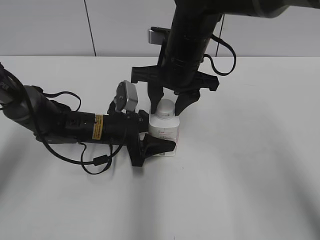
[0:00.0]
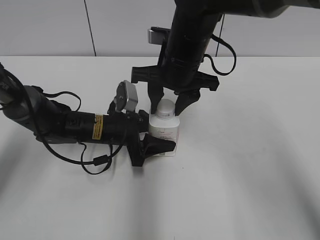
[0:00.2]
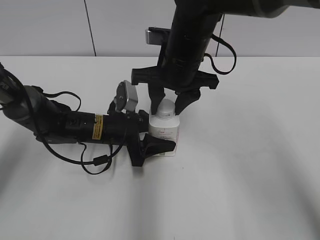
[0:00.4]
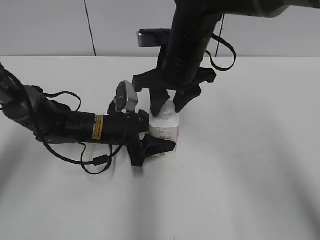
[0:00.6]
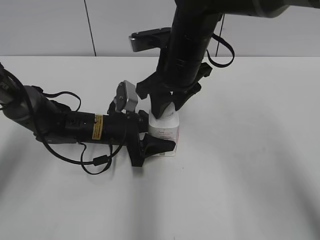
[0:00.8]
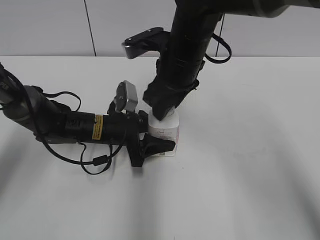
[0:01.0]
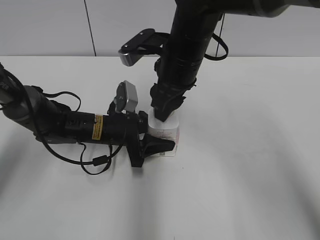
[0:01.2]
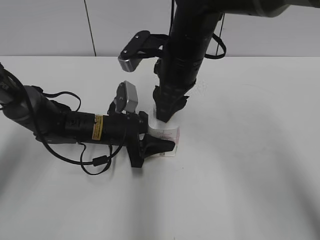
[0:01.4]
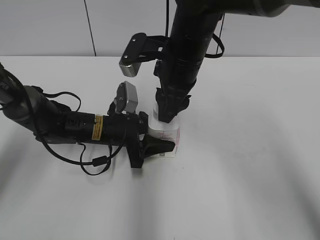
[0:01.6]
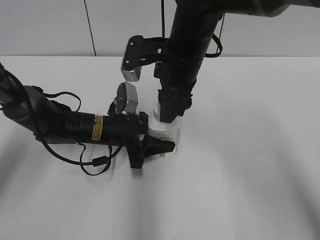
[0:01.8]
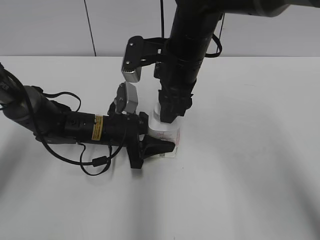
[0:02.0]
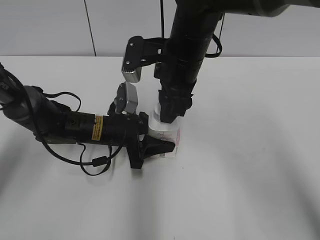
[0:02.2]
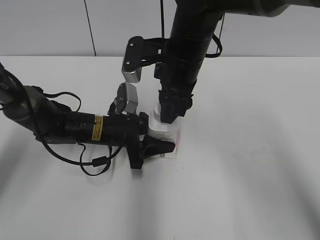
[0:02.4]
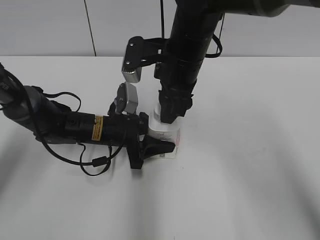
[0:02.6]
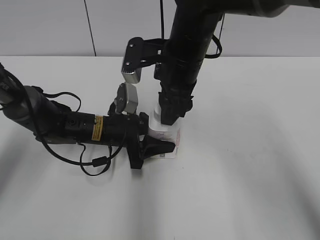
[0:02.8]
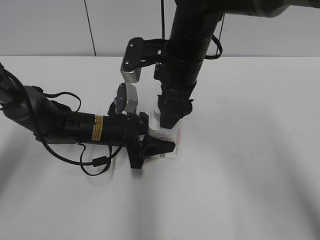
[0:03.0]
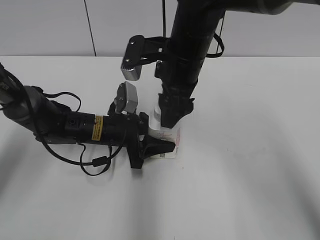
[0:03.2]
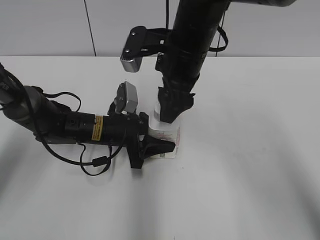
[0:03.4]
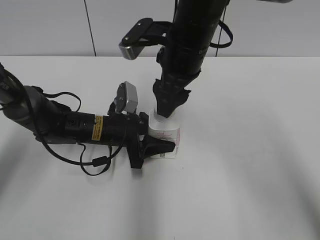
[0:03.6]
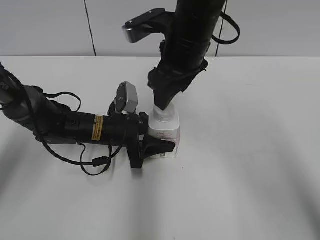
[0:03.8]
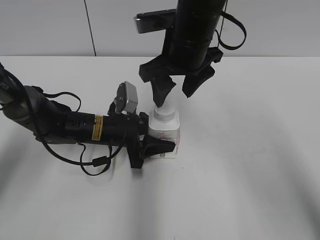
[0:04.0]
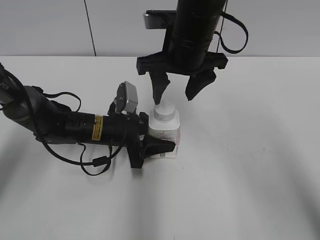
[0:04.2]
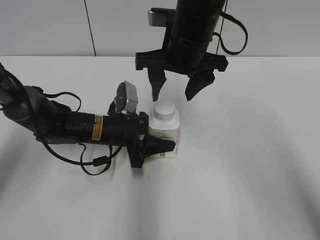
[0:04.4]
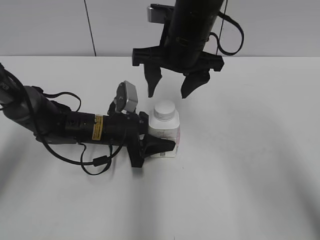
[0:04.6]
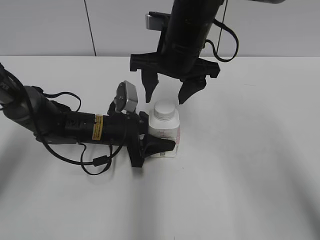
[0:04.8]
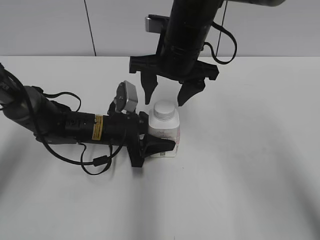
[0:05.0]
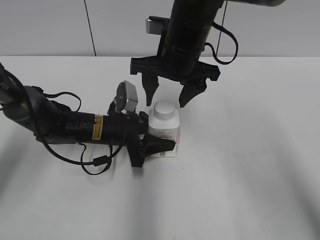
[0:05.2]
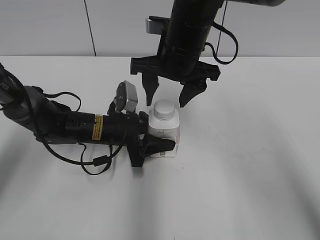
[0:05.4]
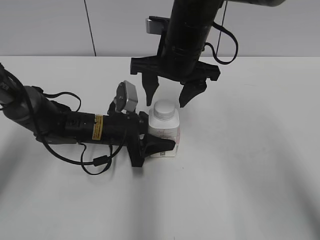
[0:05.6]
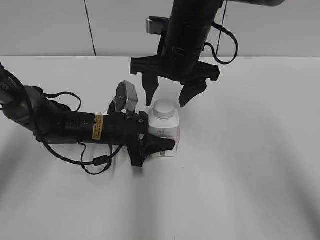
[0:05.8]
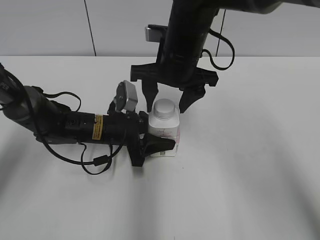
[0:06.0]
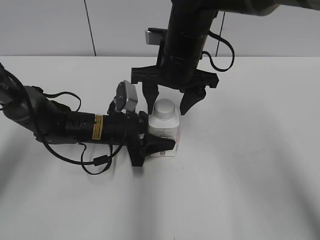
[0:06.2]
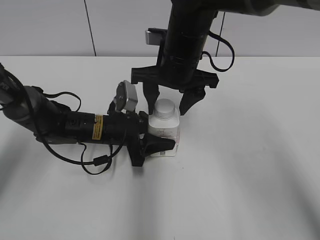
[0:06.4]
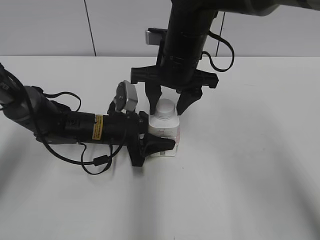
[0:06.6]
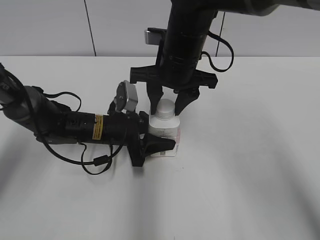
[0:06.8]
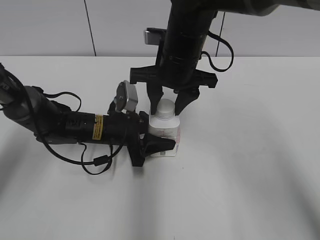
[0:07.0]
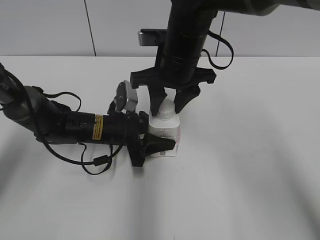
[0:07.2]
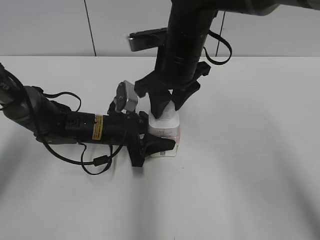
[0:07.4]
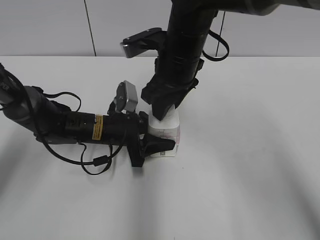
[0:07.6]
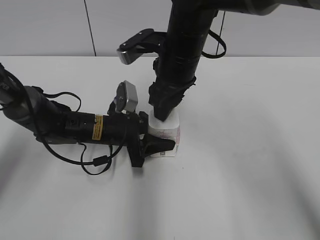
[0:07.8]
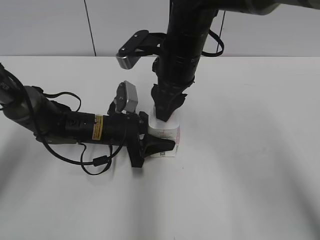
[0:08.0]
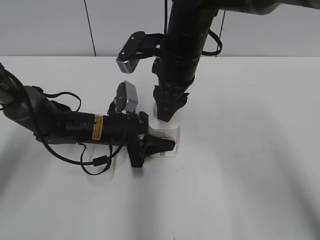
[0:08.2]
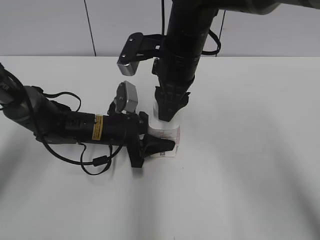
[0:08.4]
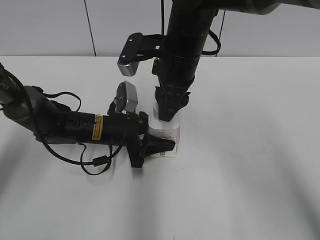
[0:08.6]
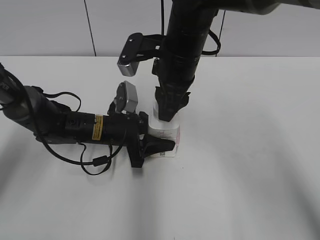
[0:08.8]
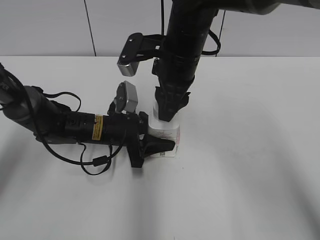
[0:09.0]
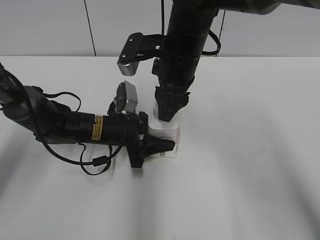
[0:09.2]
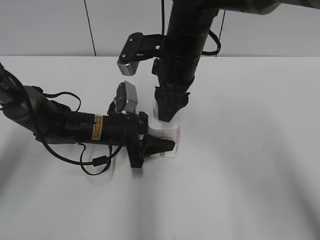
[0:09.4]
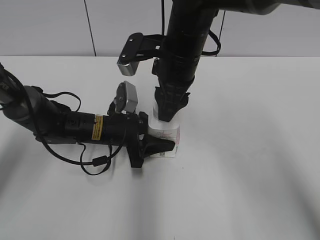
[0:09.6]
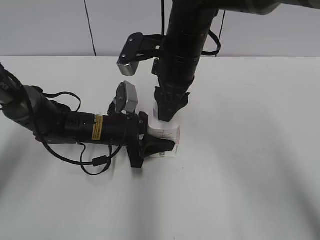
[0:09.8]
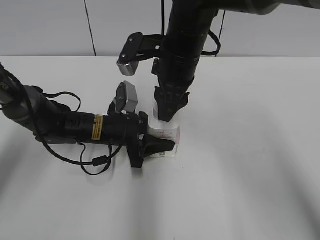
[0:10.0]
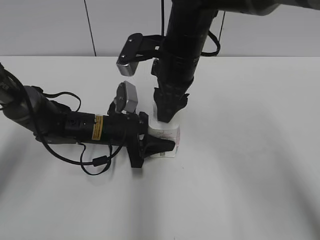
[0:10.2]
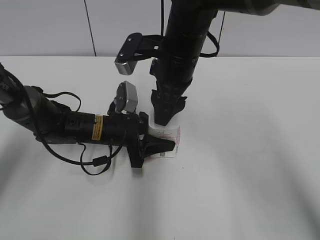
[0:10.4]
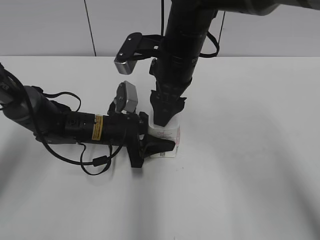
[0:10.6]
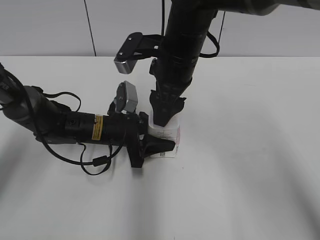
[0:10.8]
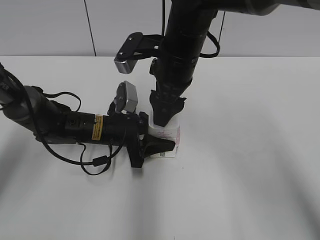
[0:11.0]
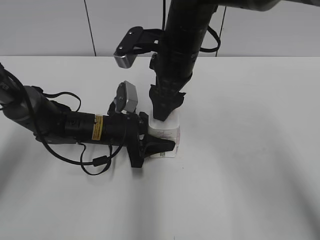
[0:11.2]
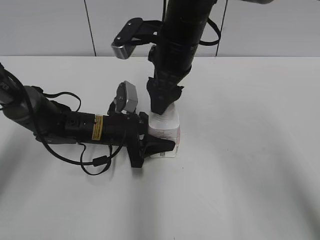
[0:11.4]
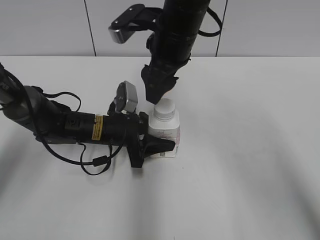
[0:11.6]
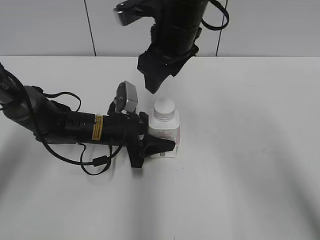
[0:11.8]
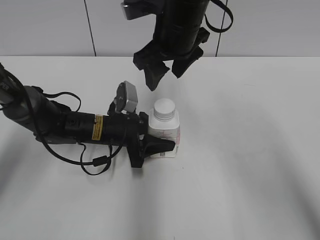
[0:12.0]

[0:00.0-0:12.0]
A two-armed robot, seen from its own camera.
0:01.6 to 0:03.0: The right gripper opens its fingers.
0:04.4 to 0:06.0: The grippers stay close to where they were, moving slightly.
0:06.0 to 0:07.6: The right gripper closes up.
0:09.0 to 0:10.4: The right gripper opens its fingers.

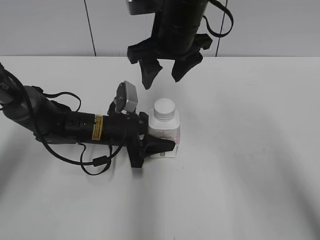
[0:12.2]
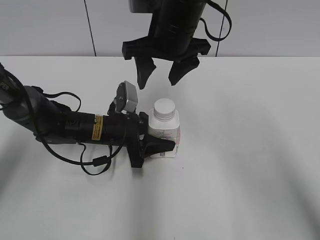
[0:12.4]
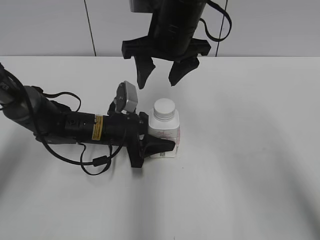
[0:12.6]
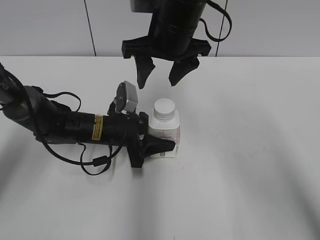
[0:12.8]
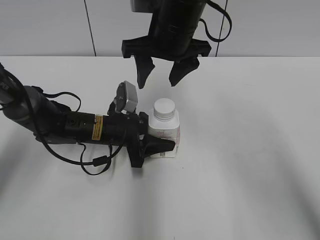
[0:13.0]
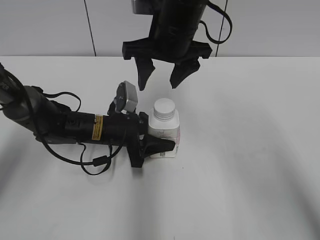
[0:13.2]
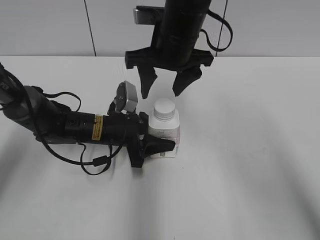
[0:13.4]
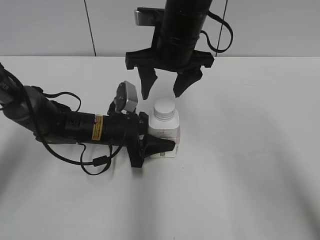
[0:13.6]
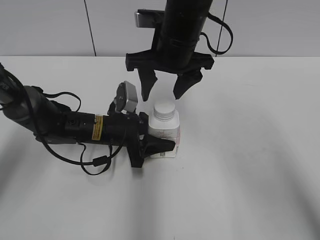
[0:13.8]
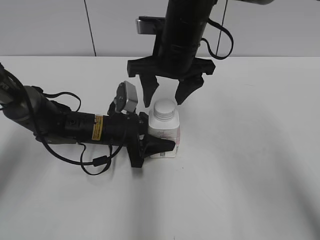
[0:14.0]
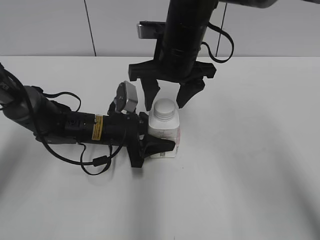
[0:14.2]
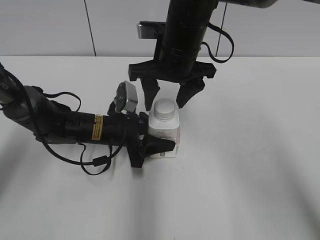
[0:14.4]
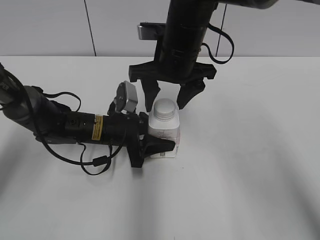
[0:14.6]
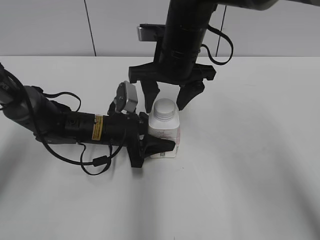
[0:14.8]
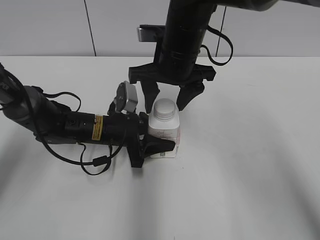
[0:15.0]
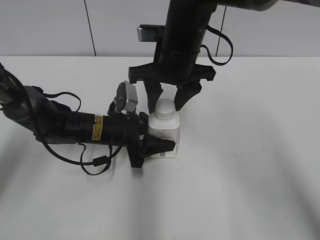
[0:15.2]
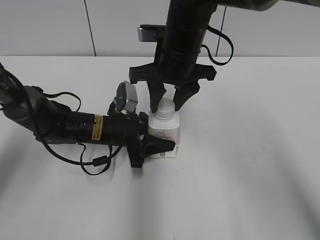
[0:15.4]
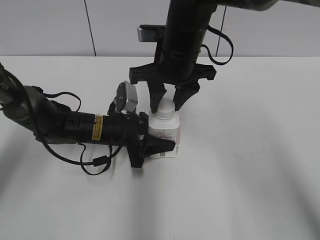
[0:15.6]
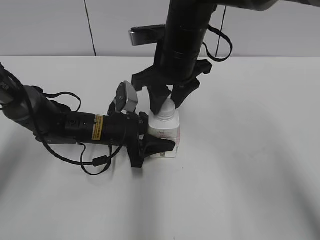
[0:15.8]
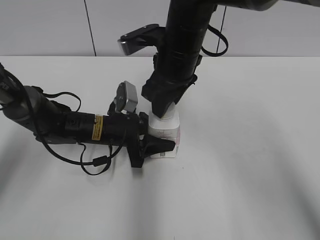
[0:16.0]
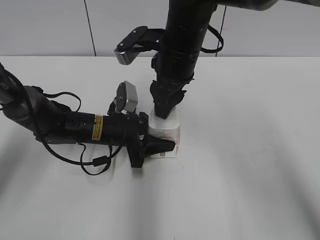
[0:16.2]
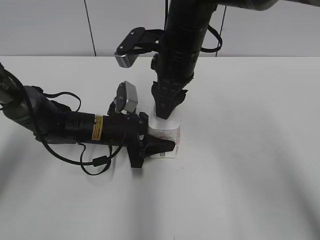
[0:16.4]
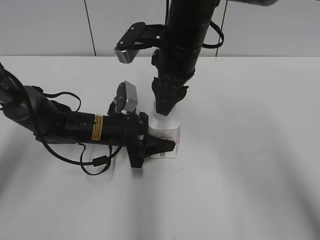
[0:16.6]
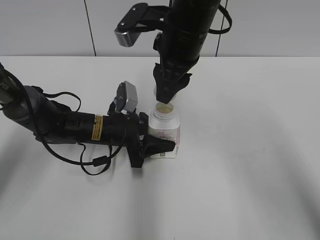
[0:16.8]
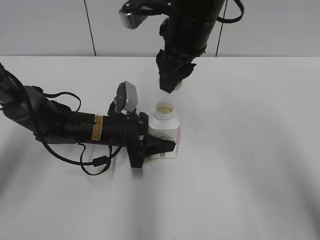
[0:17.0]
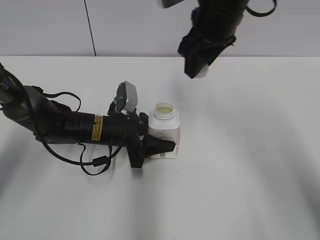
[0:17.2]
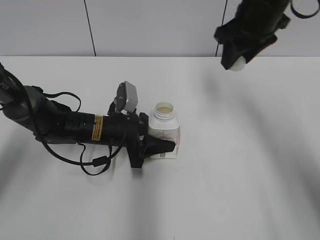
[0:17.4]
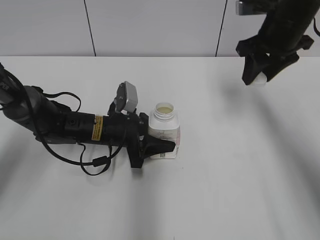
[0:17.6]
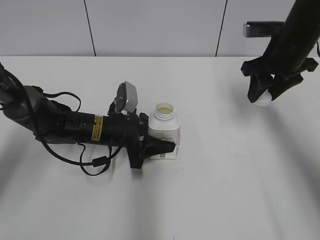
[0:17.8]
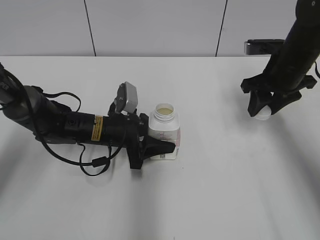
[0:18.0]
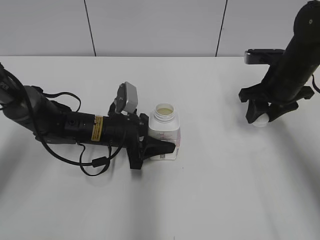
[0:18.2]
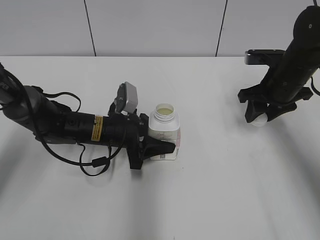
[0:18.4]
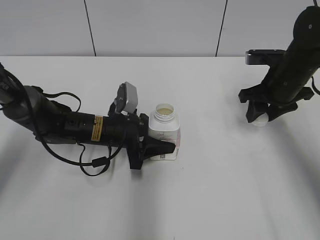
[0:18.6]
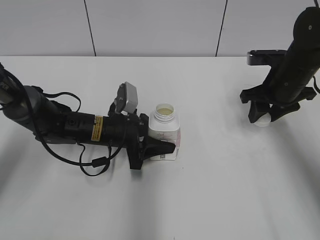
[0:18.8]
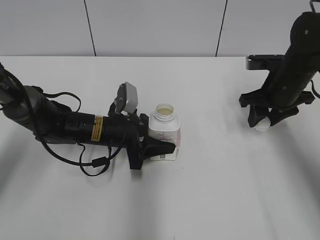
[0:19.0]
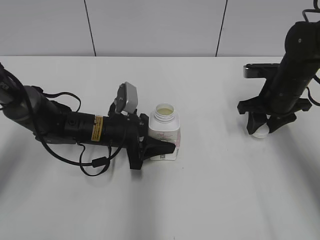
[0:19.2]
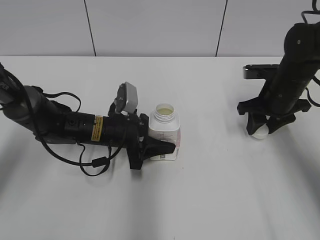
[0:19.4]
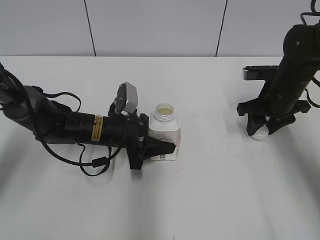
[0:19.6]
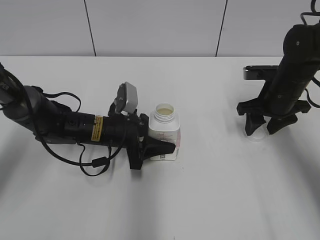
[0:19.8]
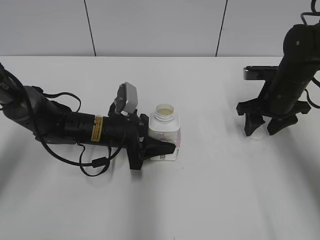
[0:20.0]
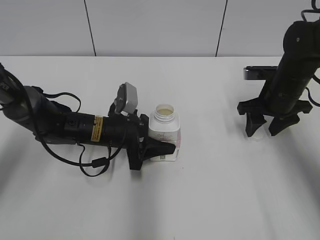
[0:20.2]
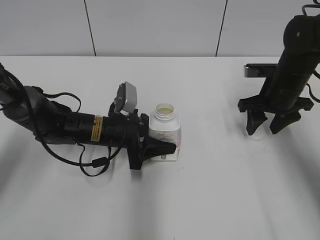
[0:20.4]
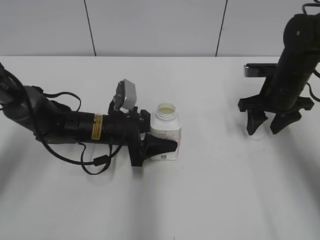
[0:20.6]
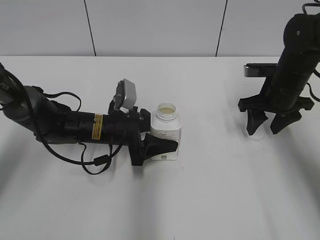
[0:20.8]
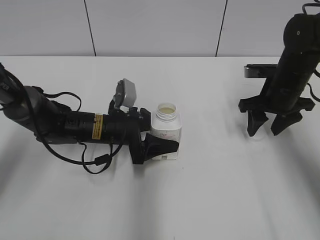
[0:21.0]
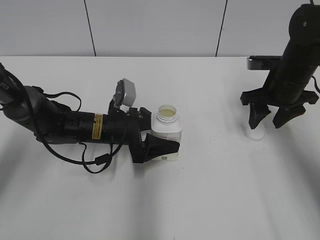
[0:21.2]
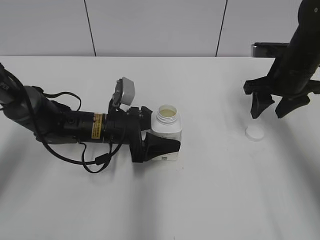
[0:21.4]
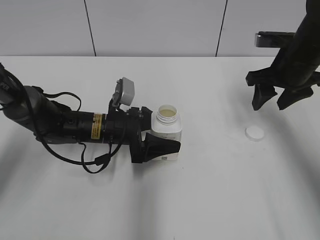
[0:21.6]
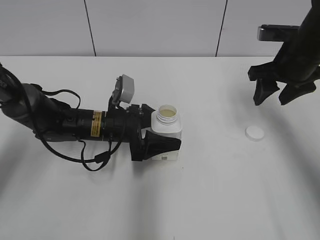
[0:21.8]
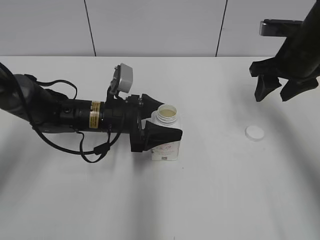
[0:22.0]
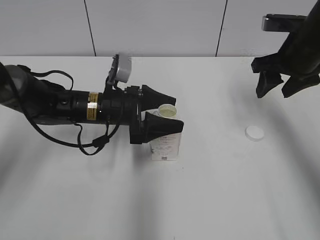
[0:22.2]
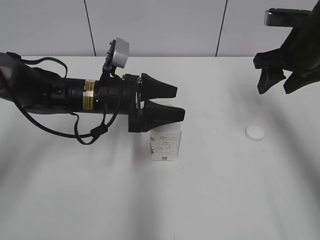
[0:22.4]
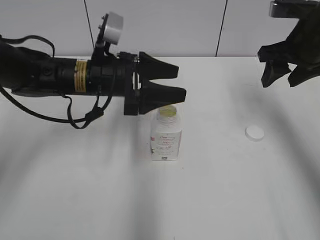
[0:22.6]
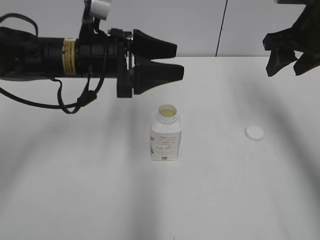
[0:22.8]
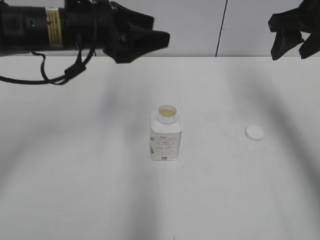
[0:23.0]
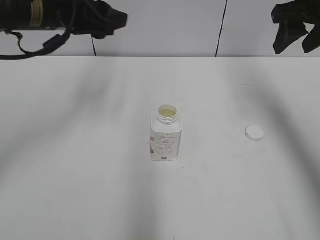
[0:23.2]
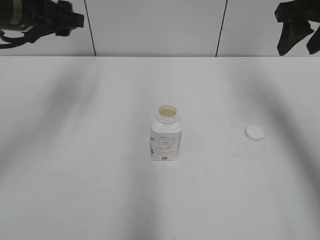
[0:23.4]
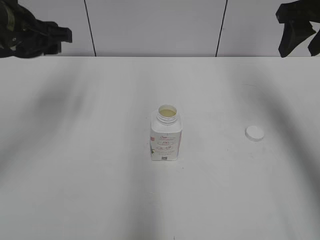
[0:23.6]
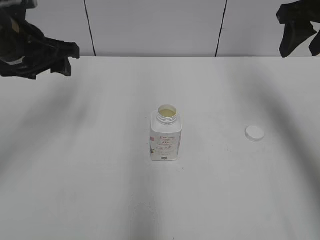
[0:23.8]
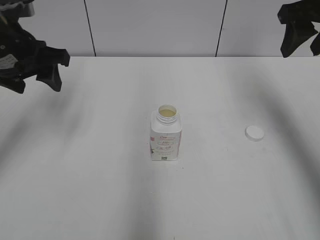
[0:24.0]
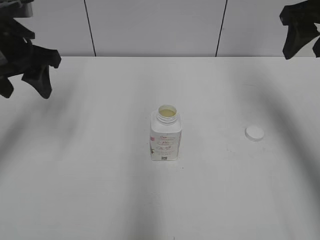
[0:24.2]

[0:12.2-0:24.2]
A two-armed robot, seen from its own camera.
Step, 0:12.2 to 0:16.6: Unscrew the bottle cap with the right gripper while holding the bottle with the left gripper.
Step, 0:16.8 to 0:19.8: Place the bottle cap on the table with the right gripper.
Step, 0:20.2 to 0:22.2: Place the bottle on the table with the left gripper.
0:12.2 to 0:13.8: The grippers make only small movements.
0:13.8 to 0:15.2: The right gripper closes its fingers.
0:15.2 to 0:16.6: The right gripper closes up.
0:16.6 to 0:18.2: The right gripper shifts approximately 20 cm to the right.
0:18.2 to 0:19.8: The right gripper opens up.
0:19.8 to 0:21.2: The left gripper opens its fingers.
0:21.2 to 0:22.6: The two grippers go roughly 10 cm upward.
0:22.6 to 0:24.2: The left gripper goes about 15 cm to the left and upward, and closes up. Meanwhile the right gripper heads upward, covering approximately 5 cm.
